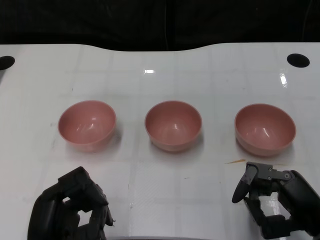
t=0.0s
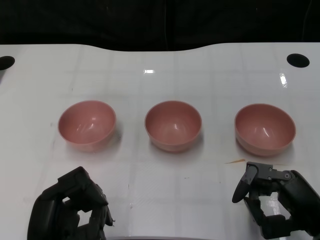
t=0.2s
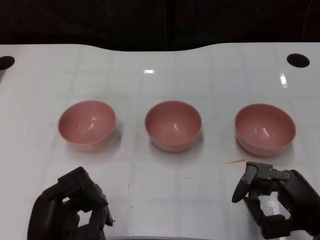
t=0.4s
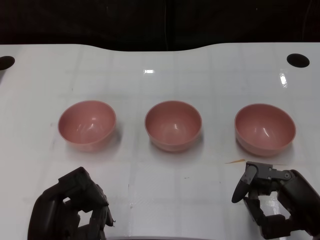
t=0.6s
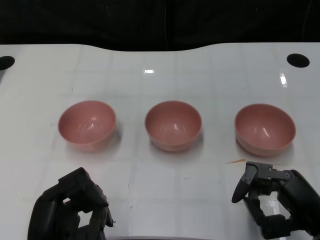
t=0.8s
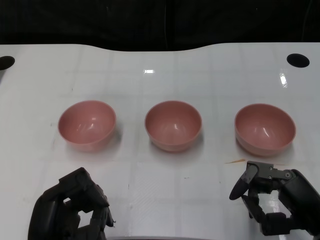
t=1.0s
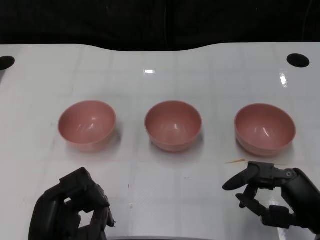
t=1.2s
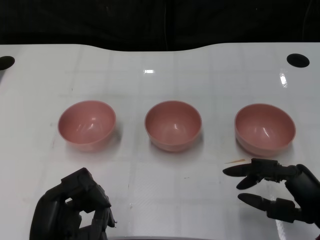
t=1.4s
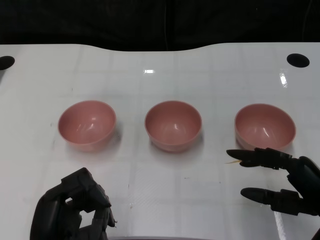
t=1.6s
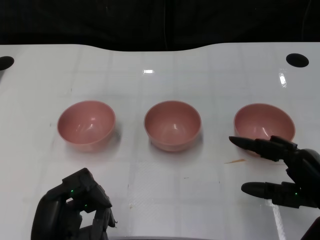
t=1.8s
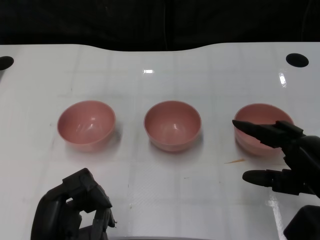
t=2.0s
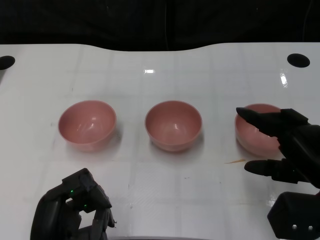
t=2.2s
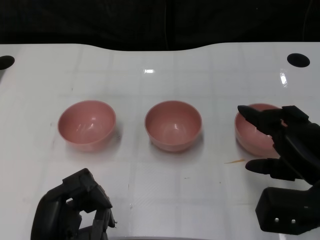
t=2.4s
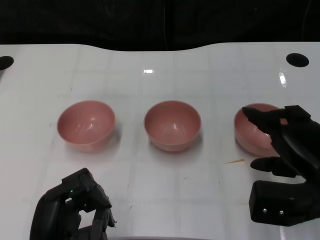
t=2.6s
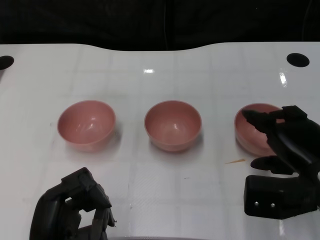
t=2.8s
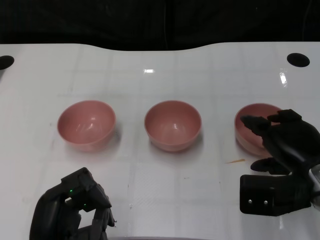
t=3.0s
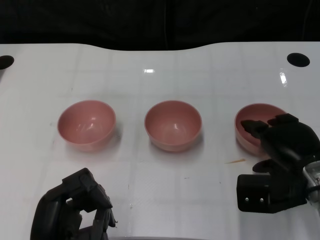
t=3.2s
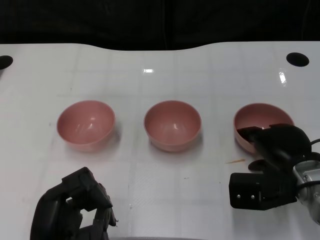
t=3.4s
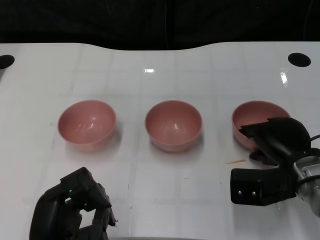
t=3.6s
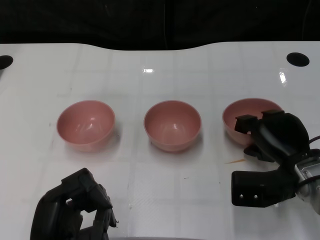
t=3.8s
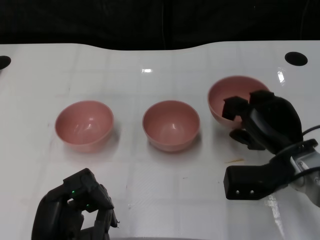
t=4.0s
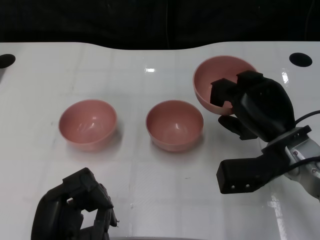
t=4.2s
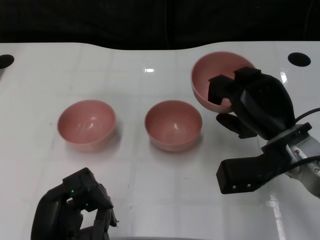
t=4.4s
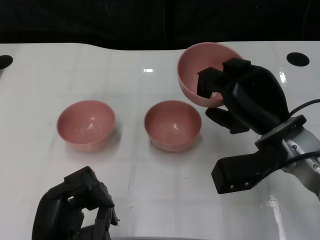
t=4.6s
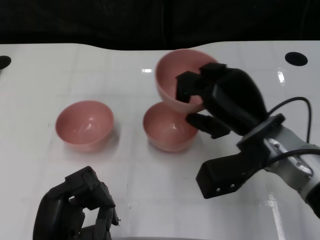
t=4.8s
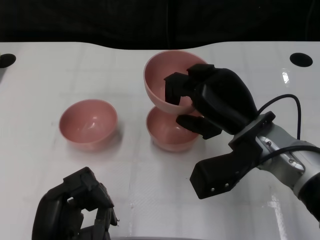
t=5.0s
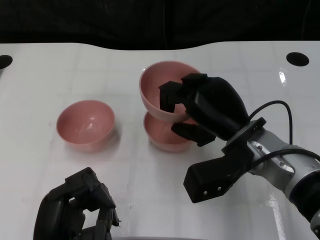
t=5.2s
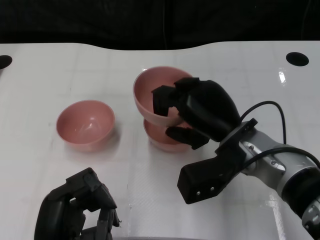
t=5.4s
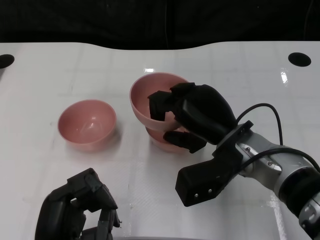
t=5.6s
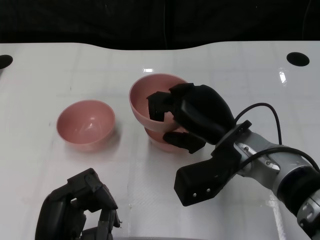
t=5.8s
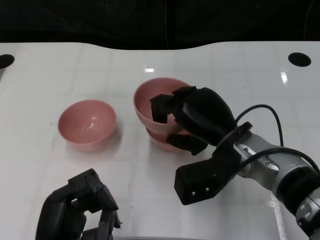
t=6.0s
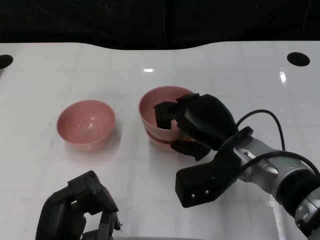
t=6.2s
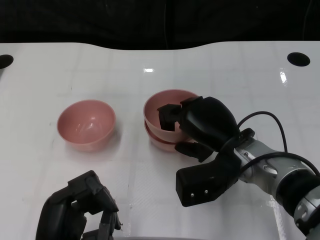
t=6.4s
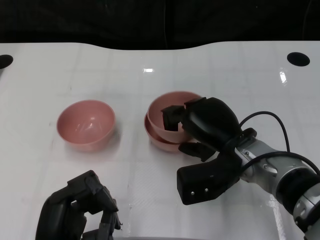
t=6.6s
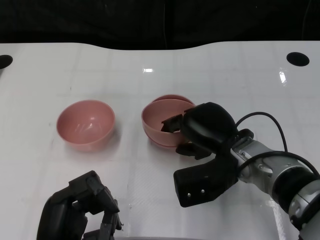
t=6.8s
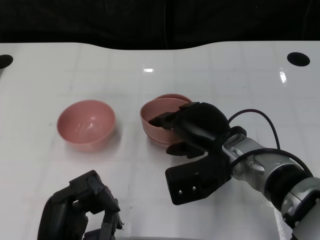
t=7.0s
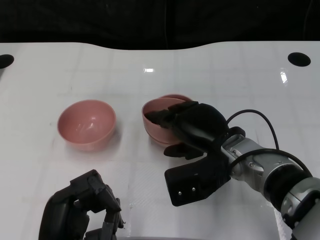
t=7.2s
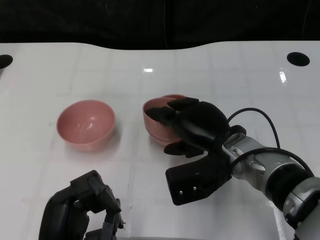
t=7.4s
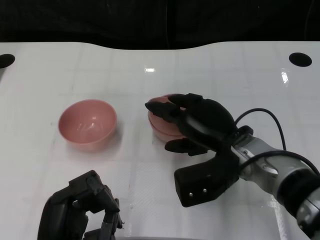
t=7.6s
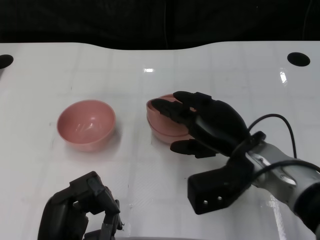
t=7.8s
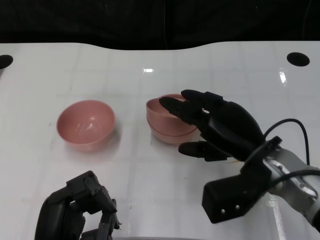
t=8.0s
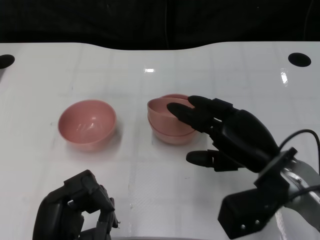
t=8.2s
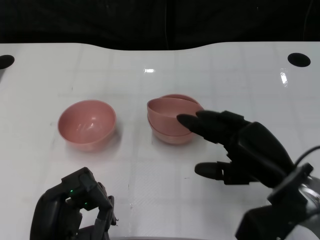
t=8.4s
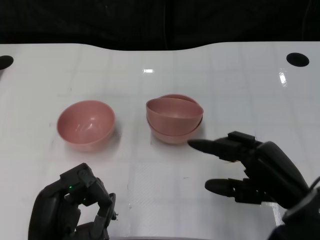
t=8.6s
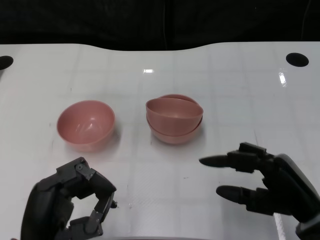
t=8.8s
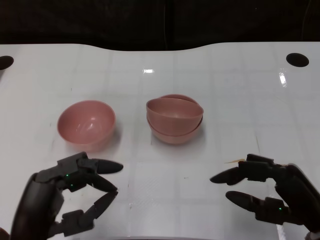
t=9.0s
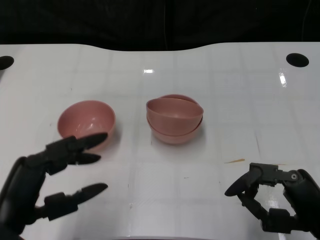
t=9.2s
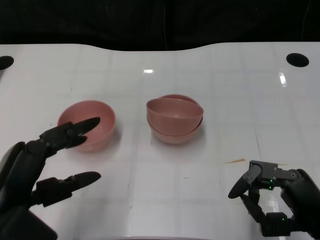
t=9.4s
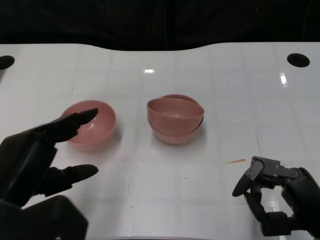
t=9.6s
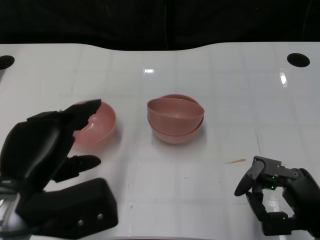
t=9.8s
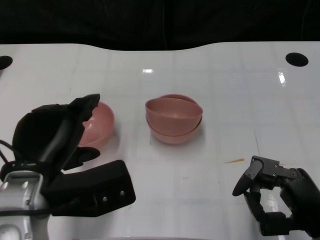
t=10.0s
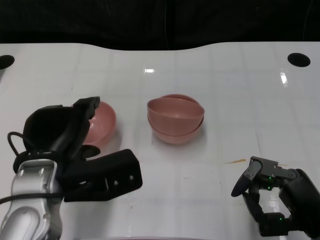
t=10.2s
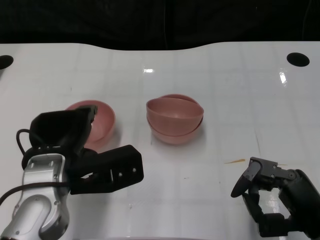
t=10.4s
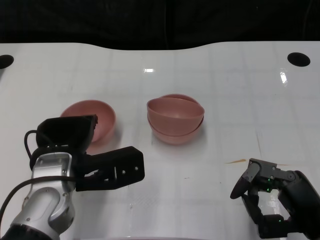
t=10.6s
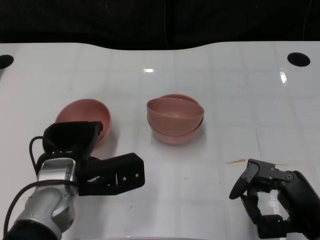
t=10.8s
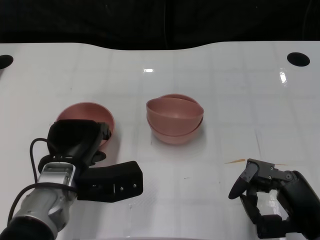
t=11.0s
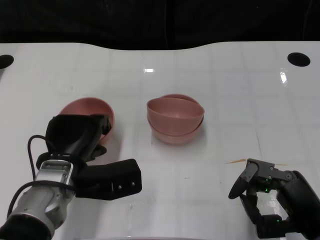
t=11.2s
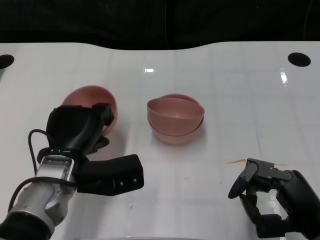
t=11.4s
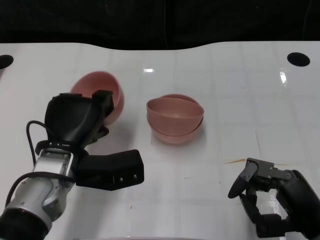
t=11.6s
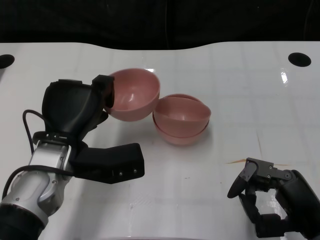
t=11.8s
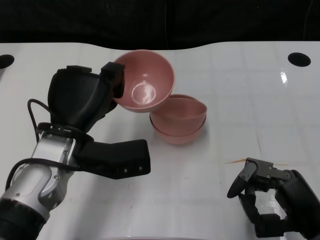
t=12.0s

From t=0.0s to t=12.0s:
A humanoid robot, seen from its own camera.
Task of the whole recording: Pick up the bowl on one side of the table and place it on top of the middle bowl, then pick up the bowl on the other side of the table and place it on top of the middle bowls.
Step, from t=1.0s to t=3.8s: Grasp the bowl on the right with the right gripper.
Step, from t=4.0s to t=8.0s: Place the bowl on the right onto the bowl in the middle with right gripper.
Step, from t=8.2s to t=11.2s: Grasp the bowl on the left with the left gripper.
From t=1.6s to t=3.0s: The right hand is displaced forward by roughly 5 cm.
From t=3.0s to t=4.4s: The right hand ends up approximately 5 cm from where it was.
From t=4.4s to t=6.0s: The right hand goes roughly 5 cm to the left.
From t=7.6s to t=9.0s: The right hand moves to the right and backward, some 15 cm.
From t=9.0s to t=10.4s: The left hand is displaced forward by roughly 10 cm.

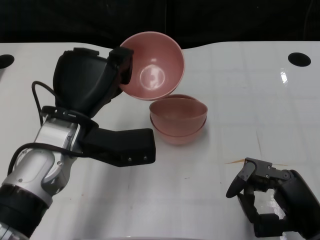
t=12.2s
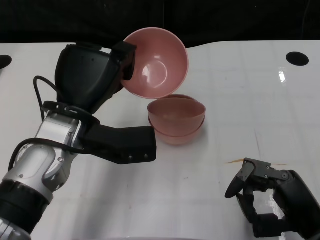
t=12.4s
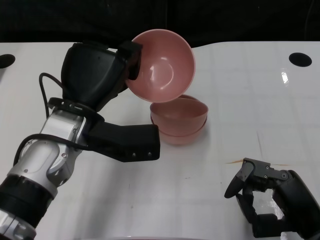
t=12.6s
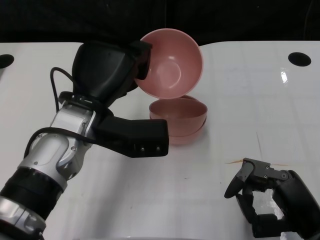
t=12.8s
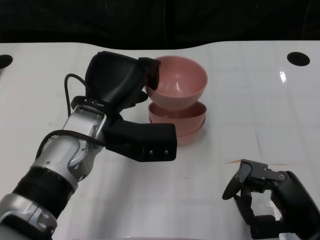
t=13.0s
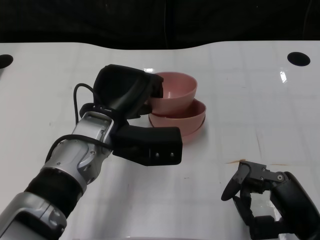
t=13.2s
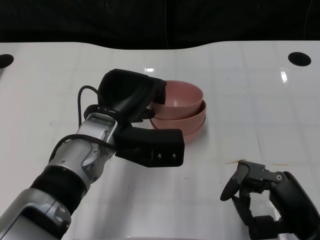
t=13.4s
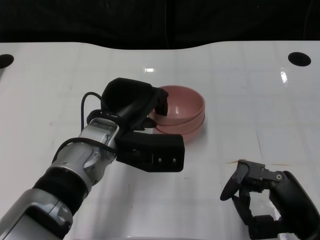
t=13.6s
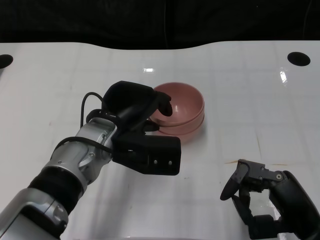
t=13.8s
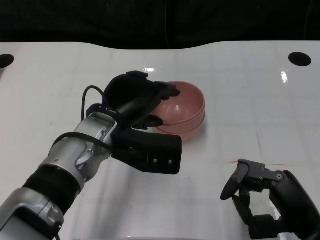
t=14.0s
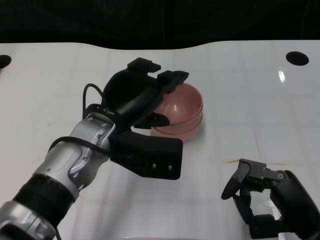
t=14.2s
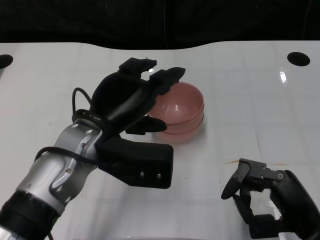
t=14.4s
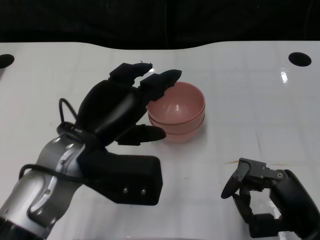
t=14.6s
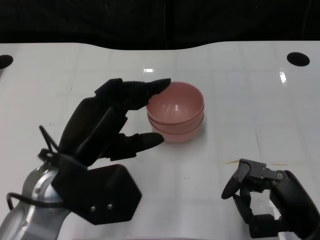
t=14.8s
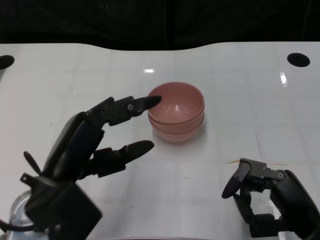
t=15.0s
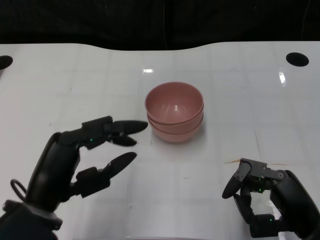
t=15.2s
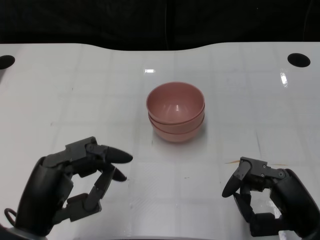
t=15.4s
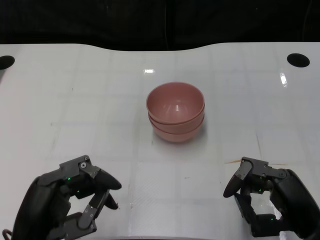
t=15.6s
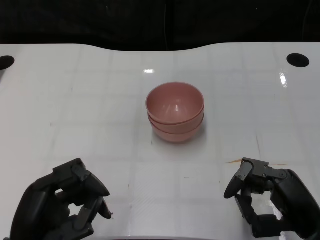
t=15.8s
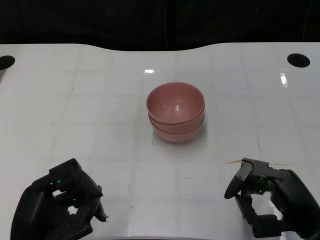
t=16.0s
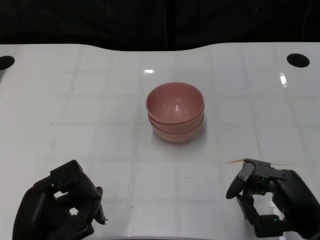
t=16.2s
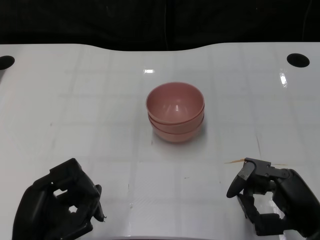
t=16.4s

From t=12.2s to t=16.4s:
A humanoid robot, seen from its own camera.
Task of the whole recording: Pick up the bowl on one side of the table and place it on top of the middle bowl, then pick up the bowl on the other side of the table and place it on top of the middle bowls.
Step, from t=12.2s to t=14.6s: Place the bowl on the left onto the bowl in the middle with left gripper.
From t=12.2s to t=13.6s: The left hand heads to the right, covering approximately 5 cm.
From t=13.6s to t=15.0s: The left hand is displaced backward and to the left by roughly 15 cm.
From t=15.0s to t=16.4s: The left hand is displaced downward and backward by some 10 cm.

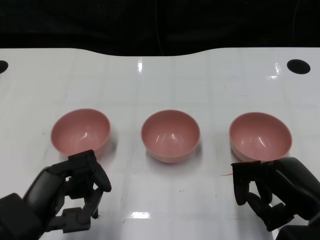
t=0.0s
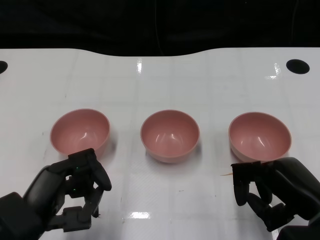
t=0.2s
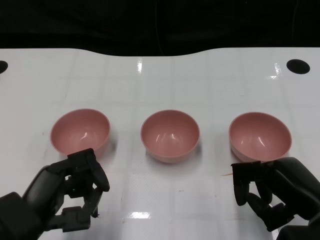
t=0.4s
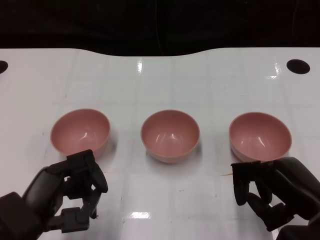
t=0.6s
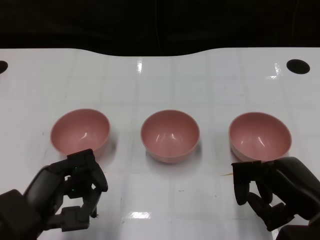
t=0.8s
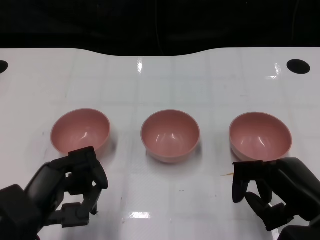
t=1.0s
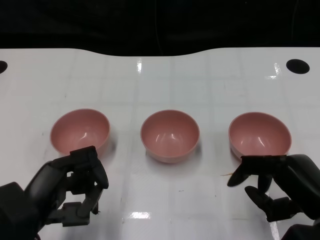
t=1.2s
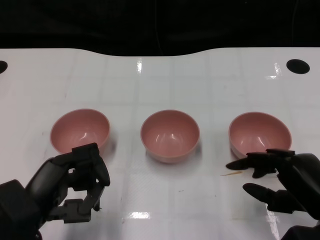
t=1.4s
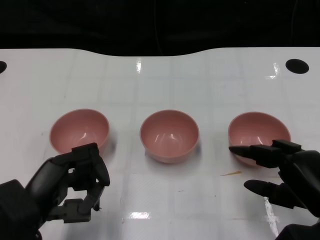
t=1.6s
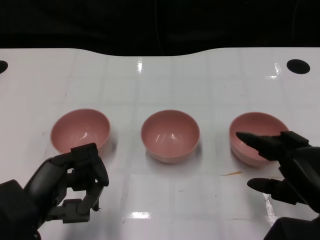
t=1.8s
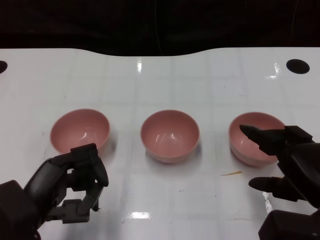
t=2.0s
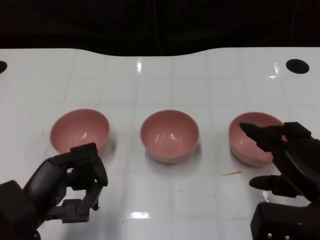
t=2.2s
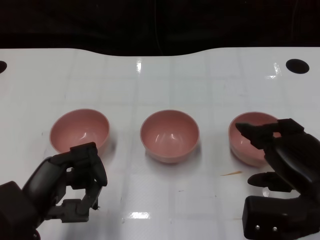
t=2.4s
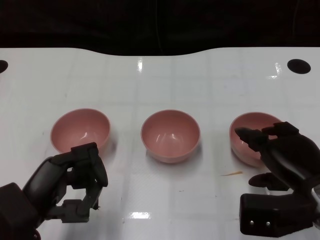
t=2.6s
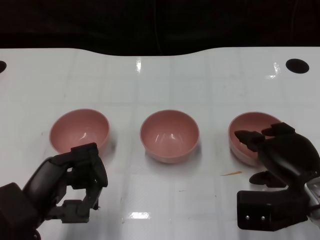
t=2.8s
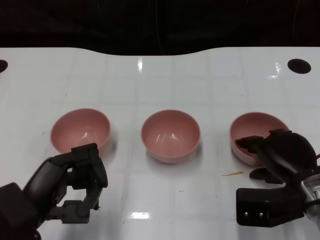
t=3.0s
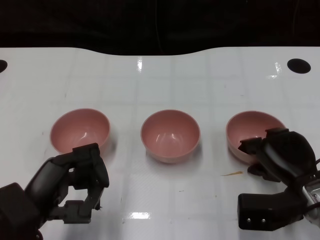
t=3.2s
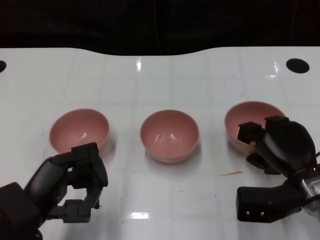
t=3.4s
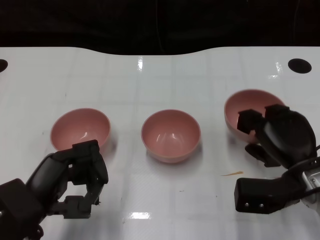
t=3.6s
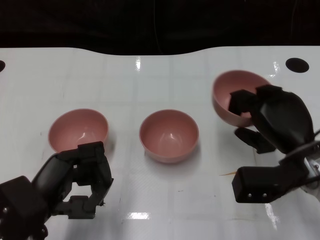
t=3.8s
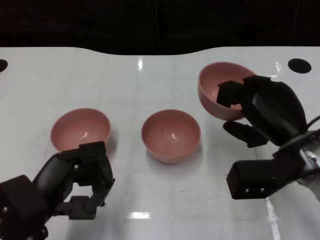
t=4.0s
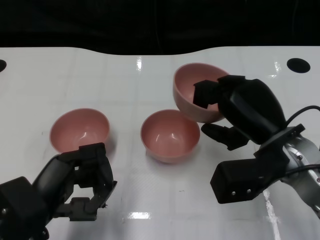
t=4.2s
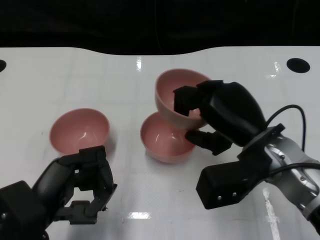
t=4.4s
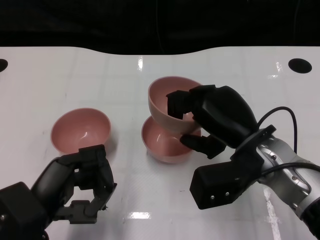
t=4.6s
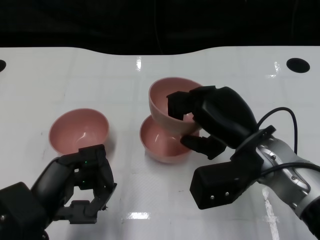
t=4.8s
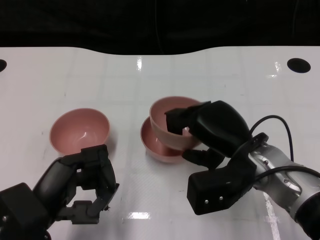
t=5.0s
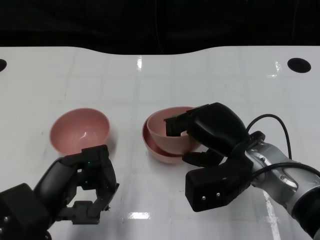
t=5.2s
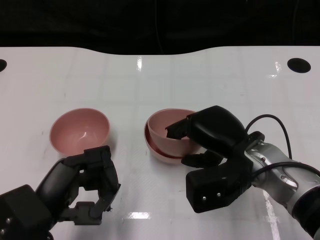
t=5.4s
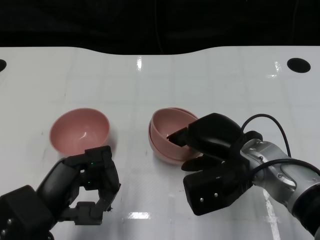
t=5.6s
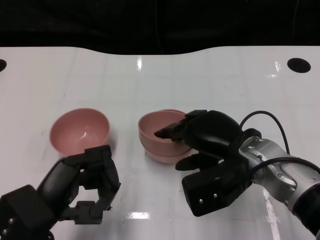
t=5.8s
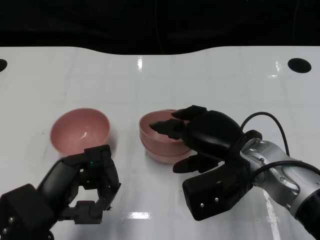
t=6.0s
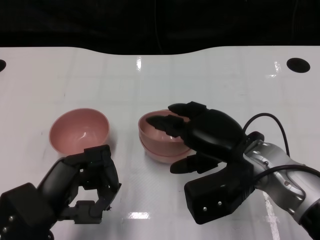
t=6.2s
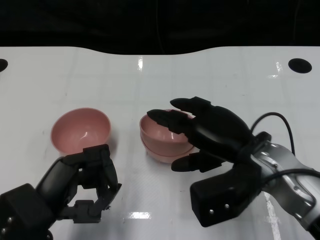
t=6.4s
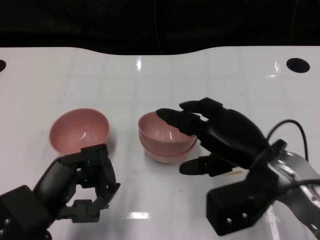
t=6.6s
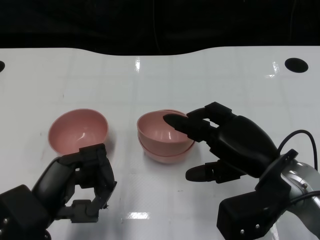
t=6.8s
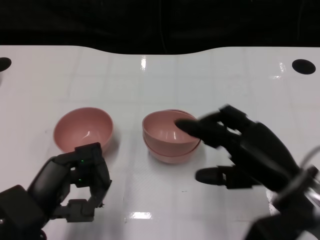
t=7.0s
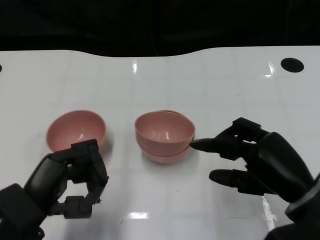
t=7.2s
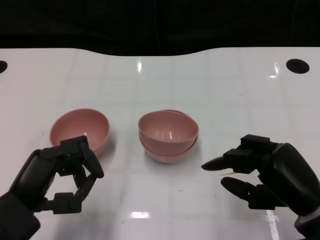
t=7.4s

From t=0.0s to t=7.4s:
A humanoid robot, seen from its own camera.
Task of the whole recording: Pick up the bowl on one side of the table and place it on top of the middle bowl, then pick up the bowl on the other side of the table and place it on top of the middle bowls.
Step, from t=1.2s to t=3.4s: Grasp the bowl on the right with the right gripper.
Step, from t=3.6s to t=6.4s: Place the bowl on the right onto the bowl in the middle with right gripper.
From t=1.4s to t=3.0s: The right hand moves forward, about 5 cm.
From t=3.0s to t=4.4s: The right hand goes some 10 cm upward and to the left.
From t=6.0s to t=7.4s: The right hand moves to the right and backward, roughly 10 cm.
